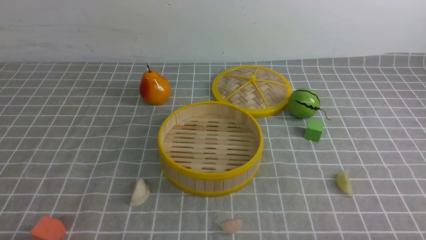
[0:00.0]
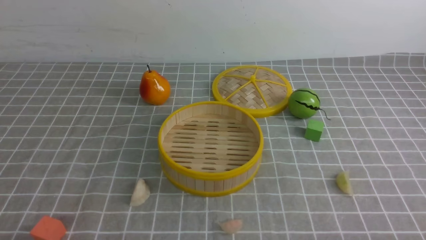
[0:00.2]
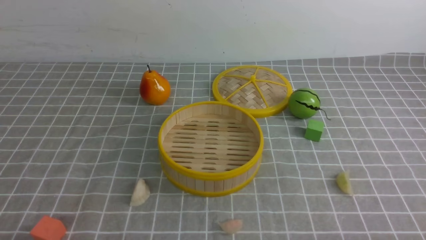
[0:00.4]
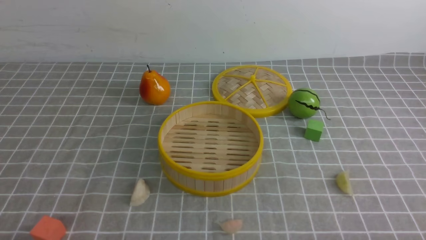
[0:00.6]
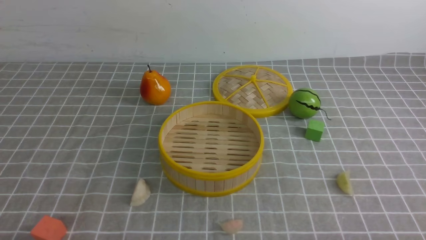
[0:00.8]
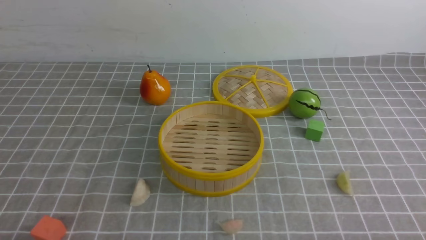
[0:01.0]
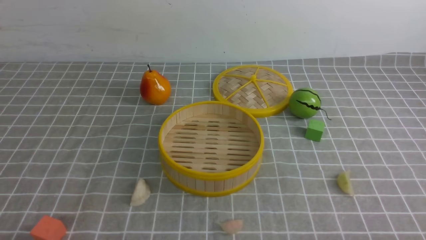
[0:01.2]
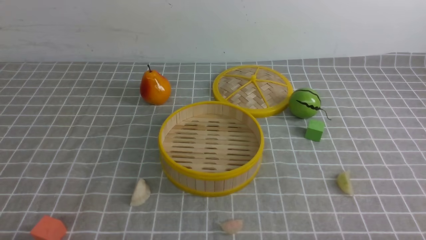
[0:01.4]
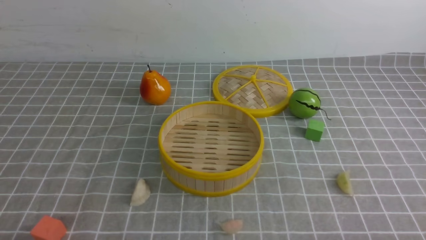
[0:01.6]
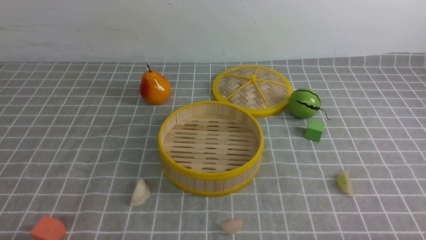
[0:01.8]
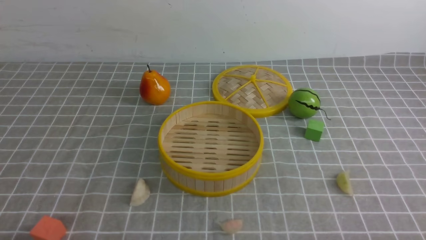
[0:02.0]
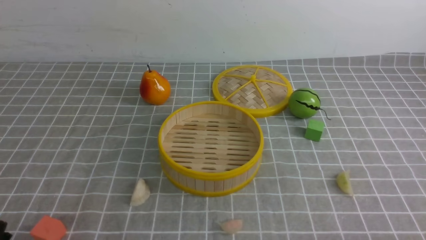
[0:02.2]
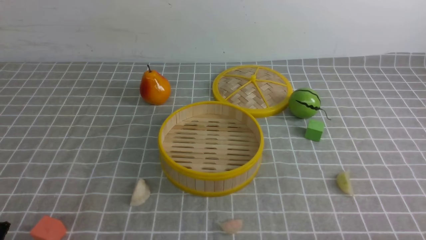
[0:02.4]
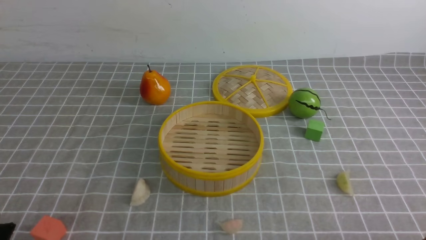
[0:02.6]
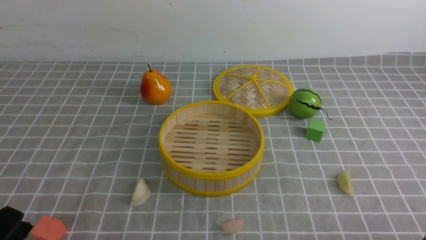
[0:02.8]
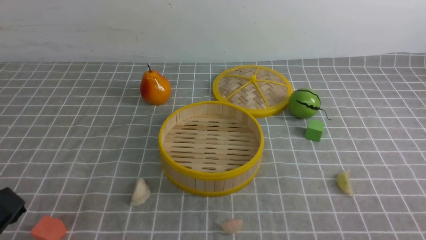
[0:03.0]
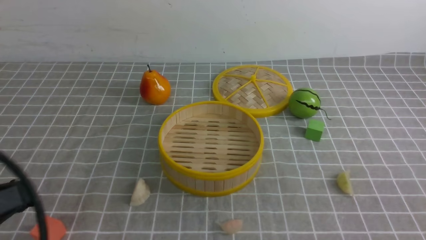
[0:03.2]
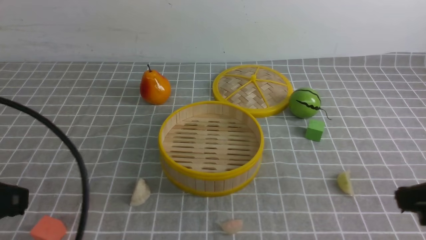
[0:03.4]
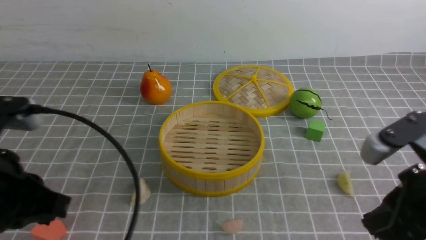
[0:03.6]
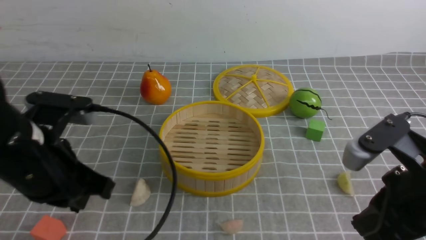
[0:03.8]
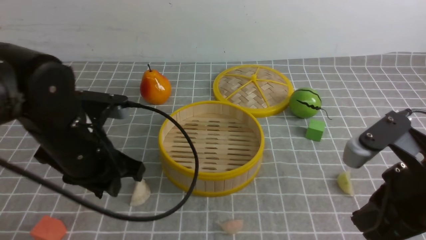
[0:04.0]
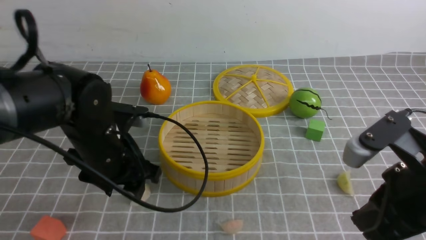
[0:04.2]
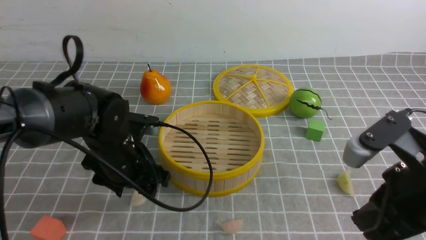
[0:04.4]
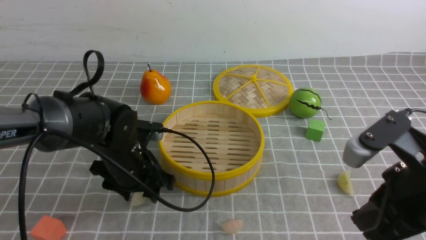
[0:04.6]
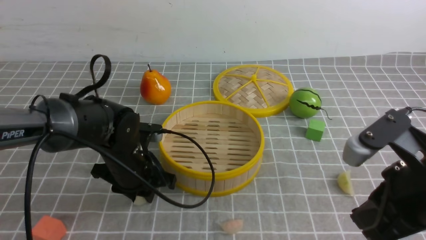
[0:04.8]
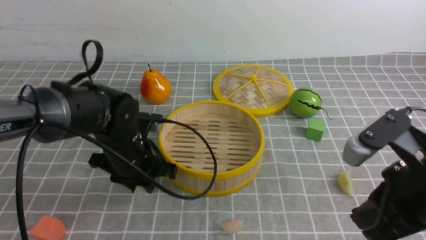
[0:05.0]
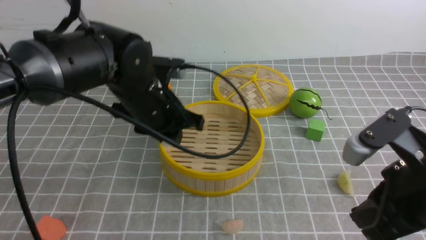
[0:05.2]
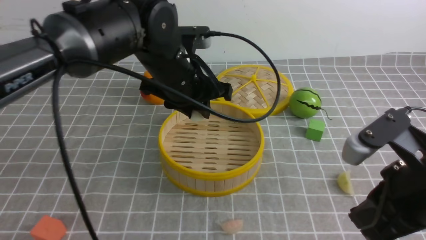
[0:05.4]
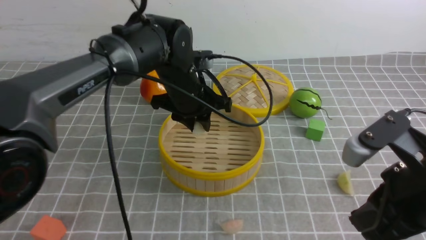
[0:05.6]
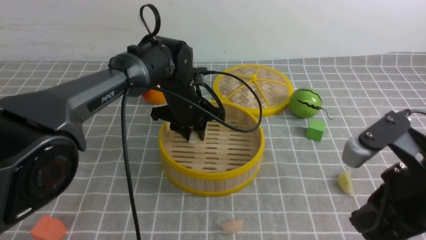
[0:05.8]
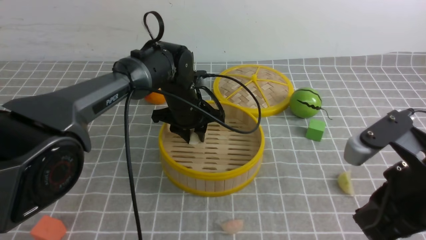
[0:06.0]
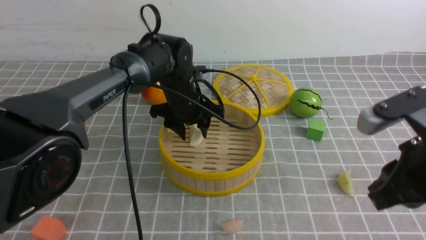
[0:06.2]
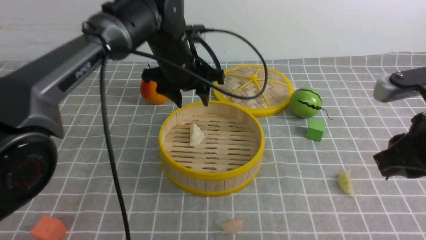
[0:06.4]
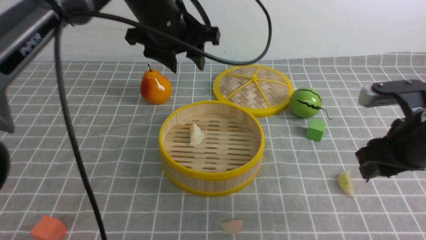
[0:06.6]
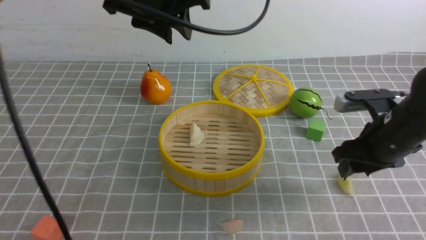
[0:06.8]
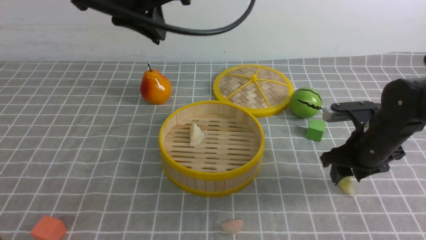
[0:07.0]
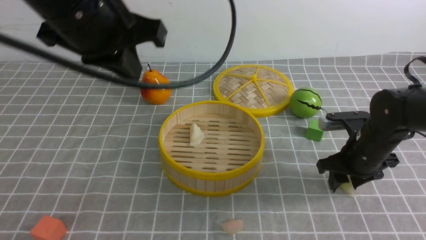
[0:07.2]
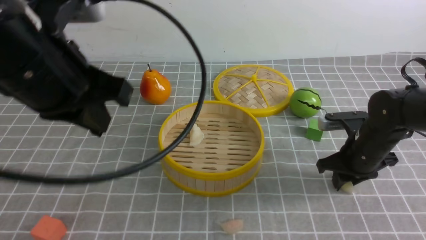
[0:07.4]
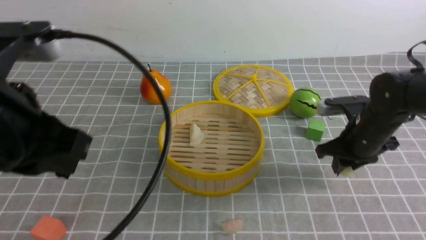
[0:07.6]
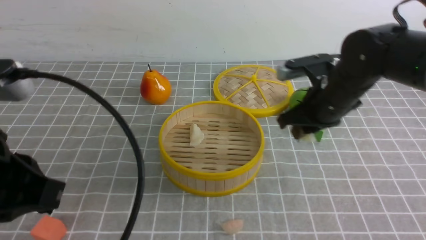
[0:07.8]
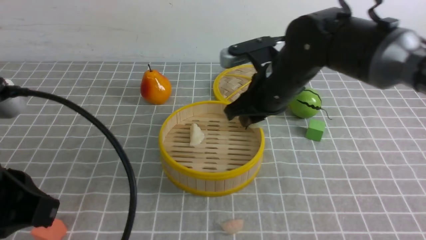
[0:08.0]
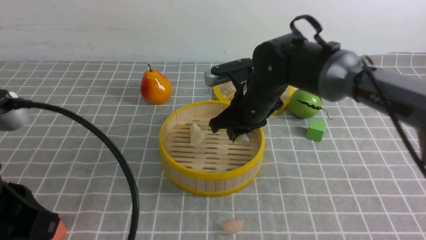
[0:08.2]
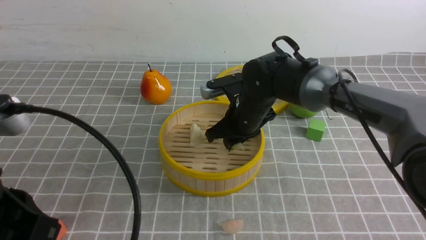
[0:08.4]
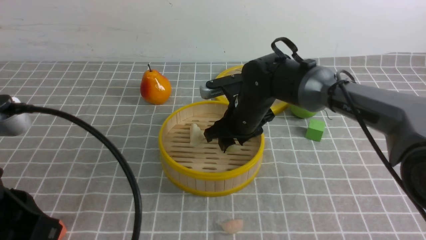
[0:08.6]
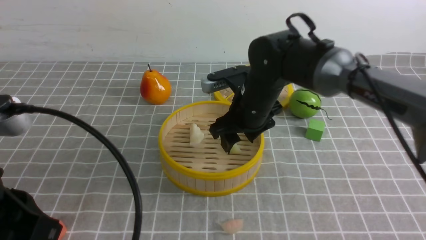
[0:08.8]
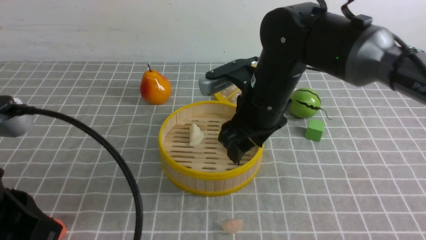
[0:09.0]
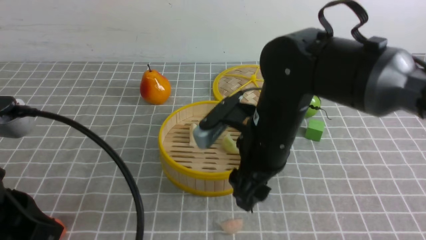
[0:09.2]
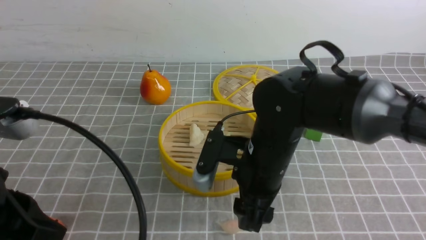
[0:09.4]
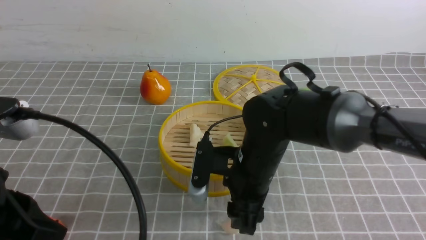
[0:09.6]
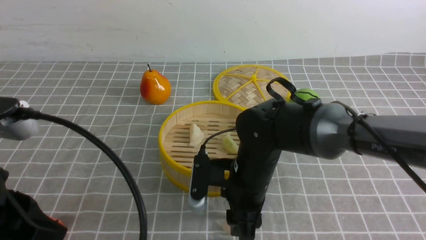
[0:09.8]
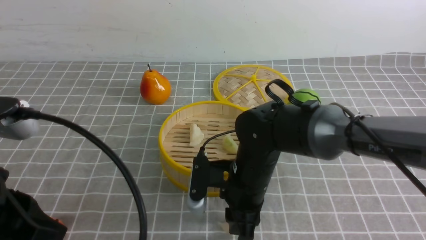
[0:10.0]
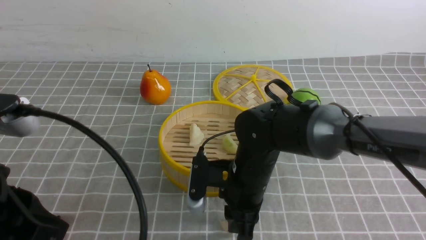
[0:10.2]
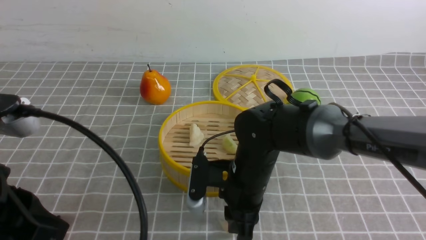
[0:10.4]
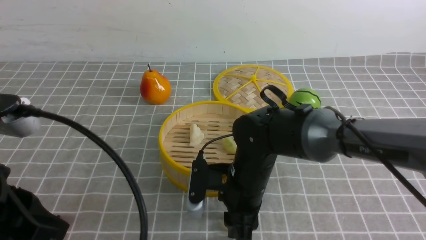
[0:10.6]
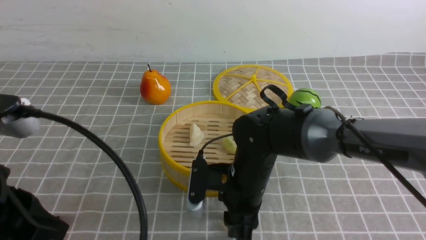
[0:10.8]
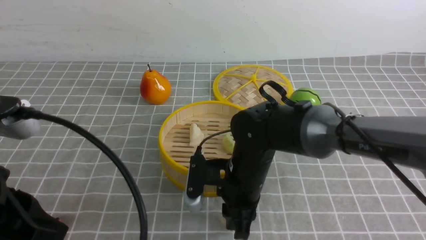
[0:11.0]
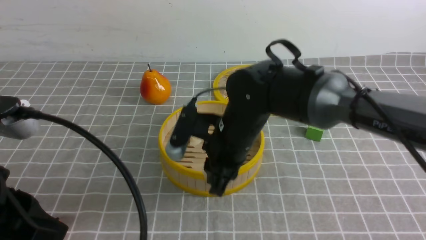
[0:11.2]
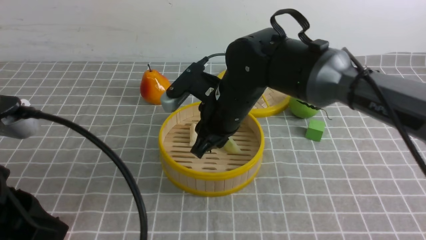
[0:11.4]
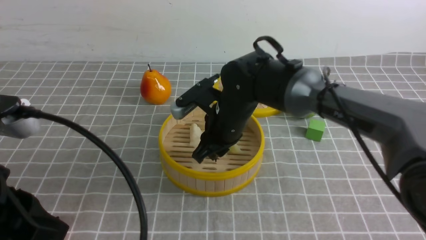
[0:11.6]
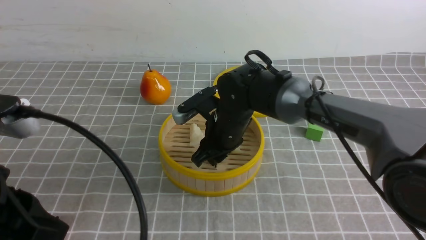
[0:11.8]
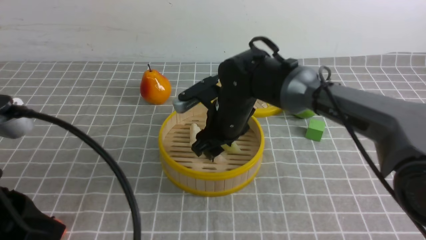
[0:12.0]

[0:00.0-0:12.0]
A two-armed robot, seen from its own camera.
Task of the whole recording: put the dumplings into the steamer on the table with the grey tablecloth.
Step, 0:00.0 to 0:04.8: use the left arm to grab a dumpling.
Step, 0:05.0 to 0:06.2: use the left arm to put the dumpling into the steamer.
Step, 0:06.4 to 0:07.6: use the right arm to grab a dumpling.
Step, 0:07.8 to 0:08.8: use the right arm to put the dumpling into the steamer.
Step, 0:09.0 to 0:11.0: use the right arm to grab a dumpling.
0:01.6 to 0:03.0: The left gripper moves upward, roughly 10 cm.
0:03.0 to 0:04.4: The left gripper goes roughly 25 cm forward, and opens; the right gripper is displaced forward and to the left by roughly 15 cm.
0:04.4 to 0:06.0: The left gripper shifts some 15 cm forward and to the right.
0:06.0 to 0:07.6: The left gripper shifts roughly 35 cm backward, upward and to the left, and closes; the right gripper travels forward and downward by approximately 20 cm, and opens, then closes once more.
0:07.6 to 0:09.0: The right gripper travels to the left by about 15 cm, and opens its fingers. The left gripper goes about 5 cm backward.
0:09.0 to 0:10.4: The right gripper goes about 10 cm downward, and closes up.
0:10.4 to 0:12.0: The right gripper is displaced forward and upward by about 10 cm, and opens.

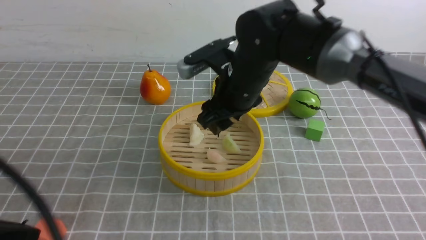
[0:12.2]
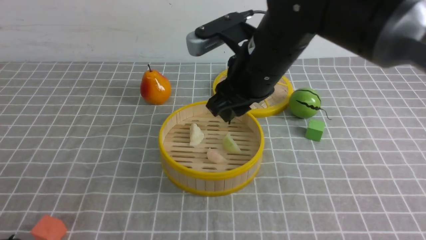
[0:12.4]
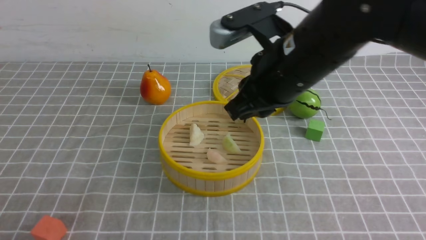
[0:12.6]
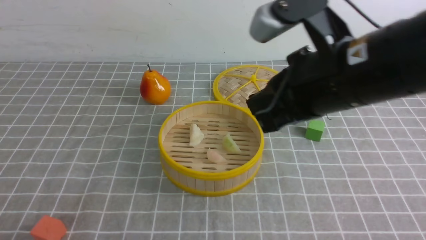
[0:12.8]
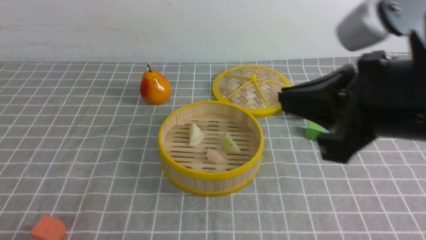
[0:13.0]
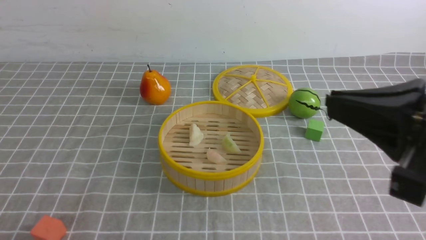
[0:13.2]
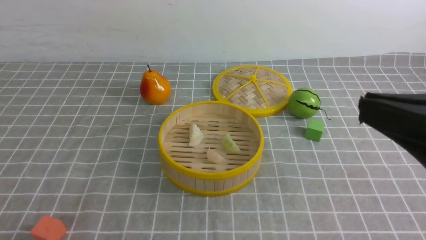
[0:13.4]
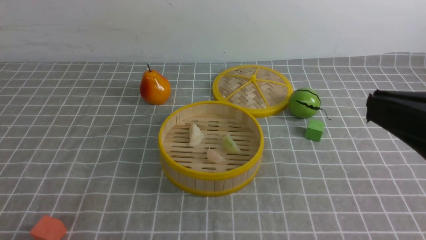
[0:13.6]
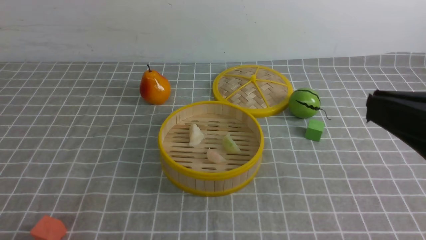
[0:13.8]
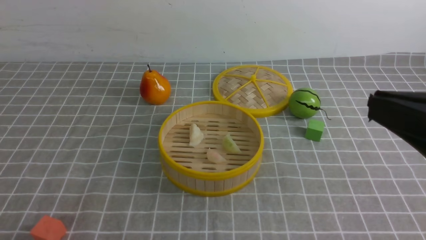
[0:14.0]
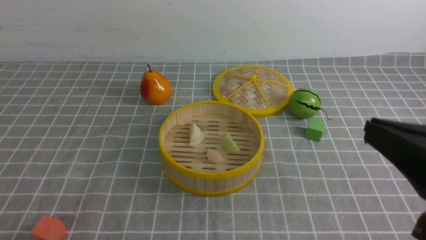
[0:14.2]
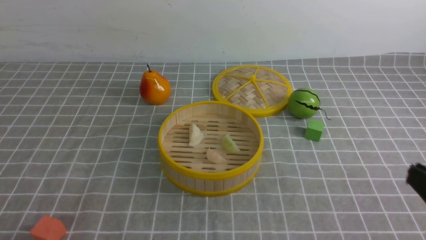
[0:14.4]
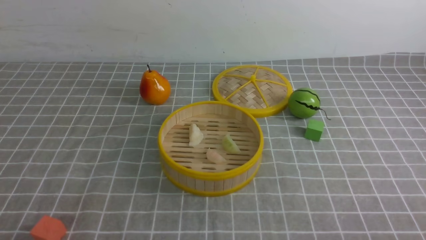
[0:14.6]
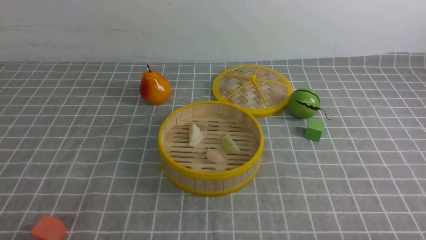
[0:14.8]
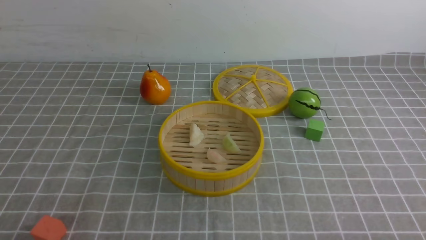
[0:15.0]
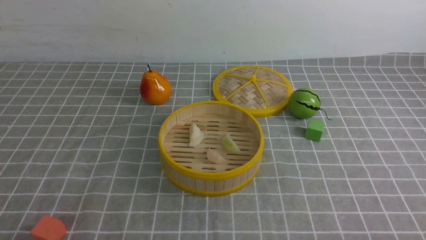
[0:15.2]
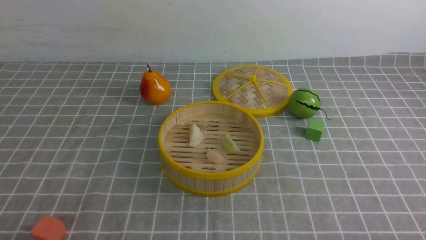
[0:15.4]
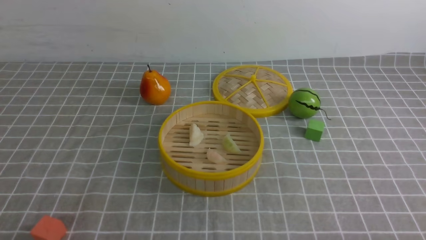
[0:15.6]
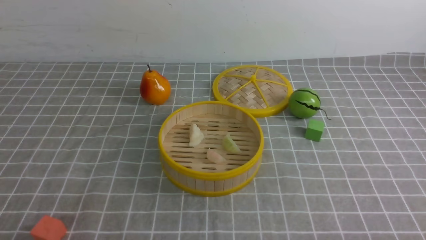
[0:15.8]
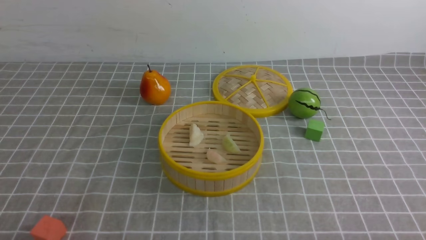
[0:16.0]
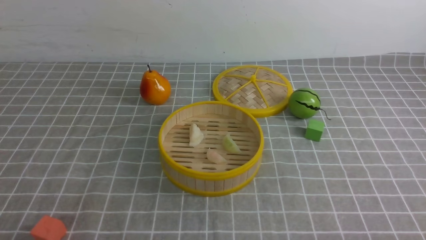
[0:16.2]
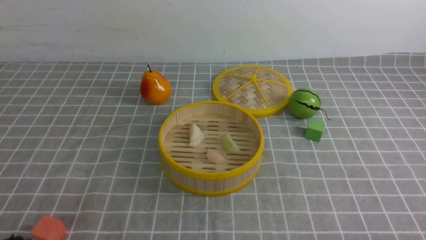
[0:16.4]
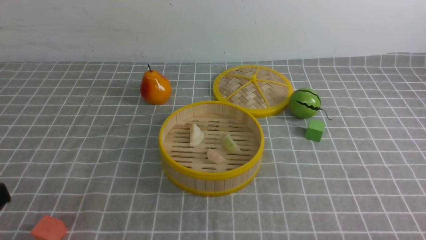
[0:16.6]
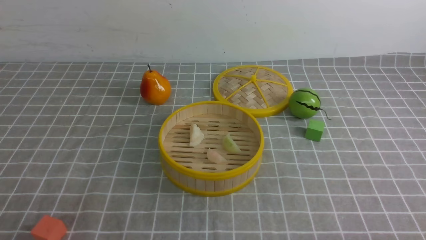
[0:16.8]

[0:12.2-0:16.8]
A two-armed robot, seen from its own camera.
Task of the whole recording: put the dumplings into the steamer on the table with the grey tablecloth.
0:12.2 to 0:13.8: The left gripper goes some 5 cm downward; the right gripper shifts some 30 cm backward and to the right, and closes its fingers.
0:13.8 to 0:15.2: The right gripper is displaced downward and to the right by approximately 25 cm.
